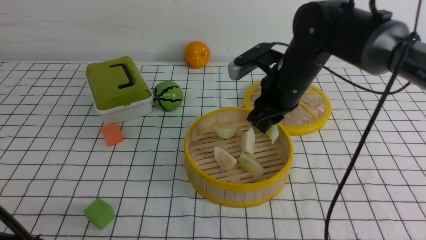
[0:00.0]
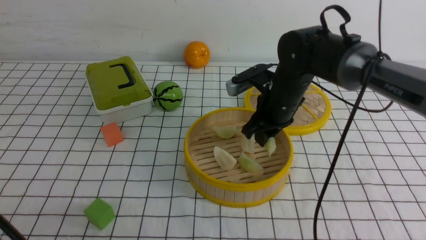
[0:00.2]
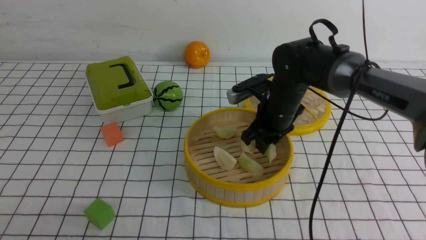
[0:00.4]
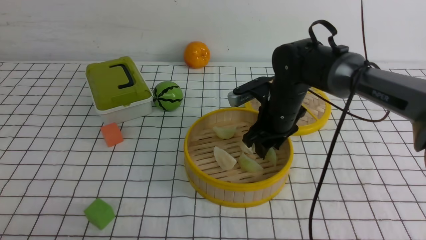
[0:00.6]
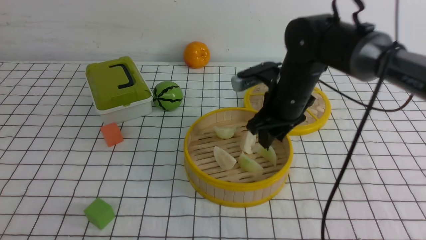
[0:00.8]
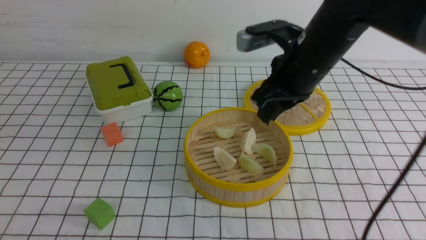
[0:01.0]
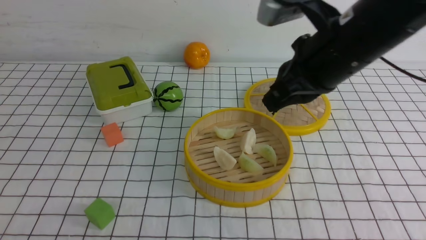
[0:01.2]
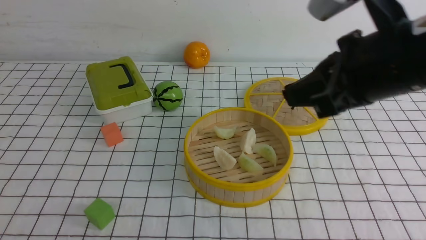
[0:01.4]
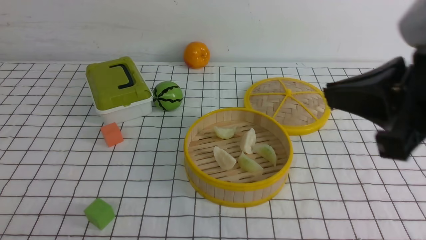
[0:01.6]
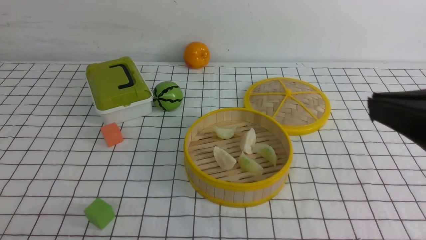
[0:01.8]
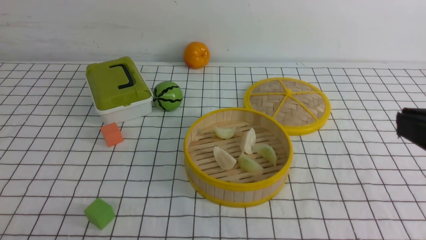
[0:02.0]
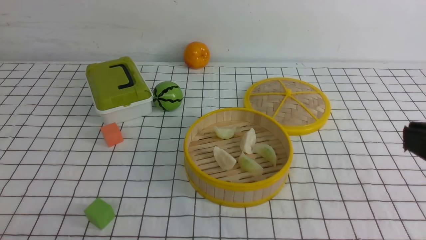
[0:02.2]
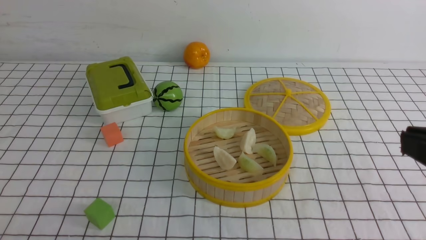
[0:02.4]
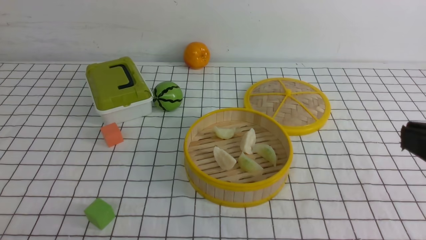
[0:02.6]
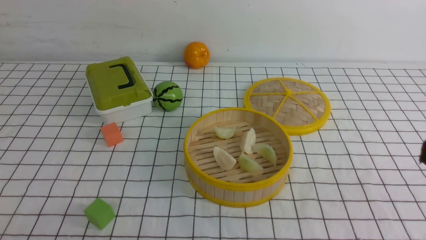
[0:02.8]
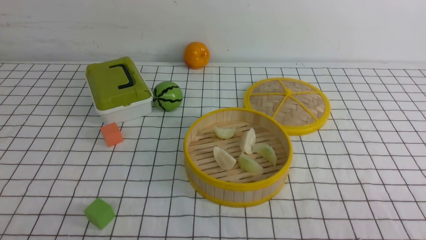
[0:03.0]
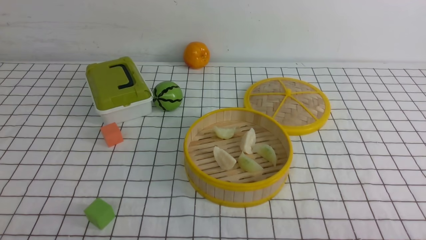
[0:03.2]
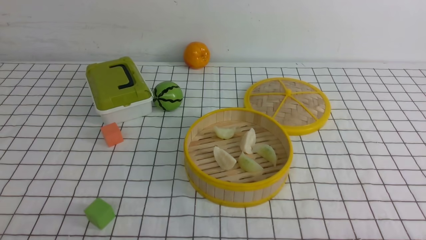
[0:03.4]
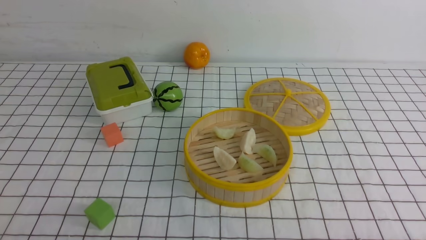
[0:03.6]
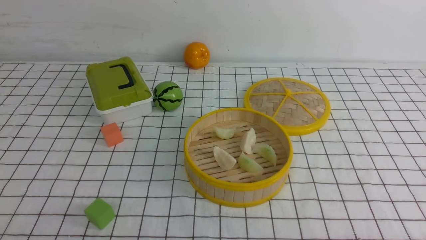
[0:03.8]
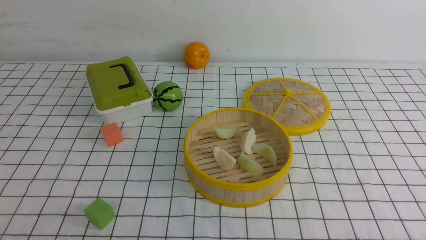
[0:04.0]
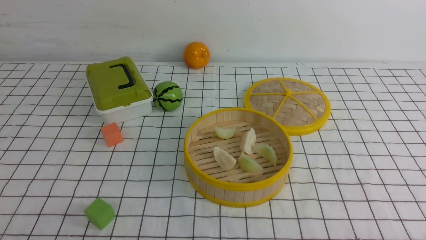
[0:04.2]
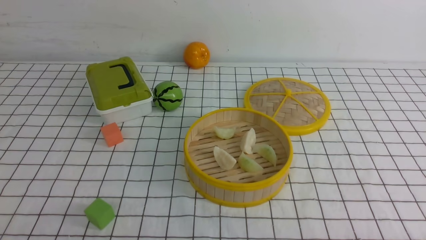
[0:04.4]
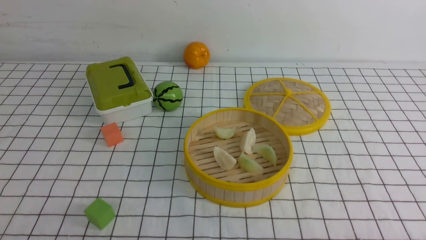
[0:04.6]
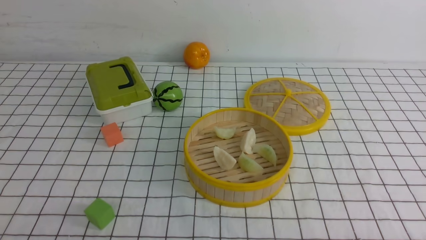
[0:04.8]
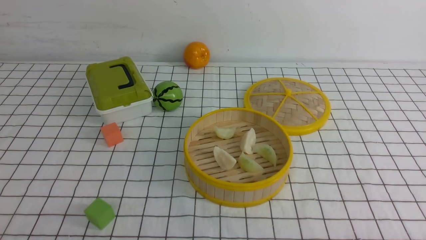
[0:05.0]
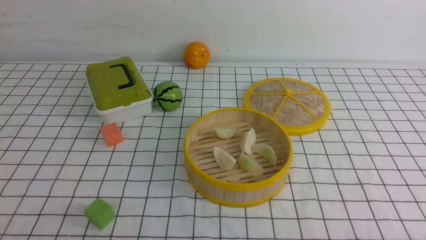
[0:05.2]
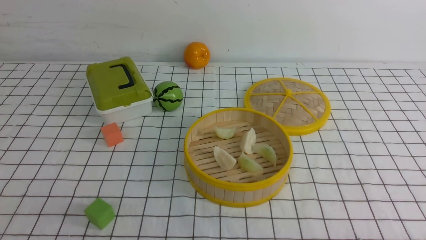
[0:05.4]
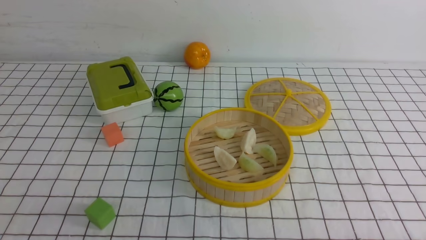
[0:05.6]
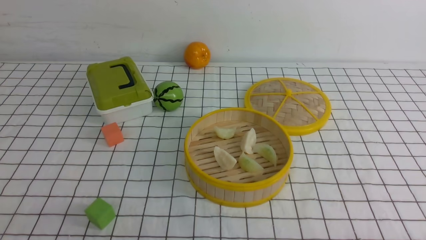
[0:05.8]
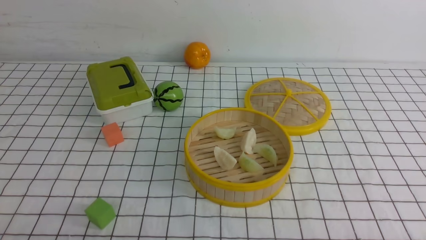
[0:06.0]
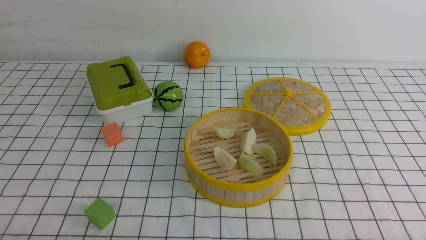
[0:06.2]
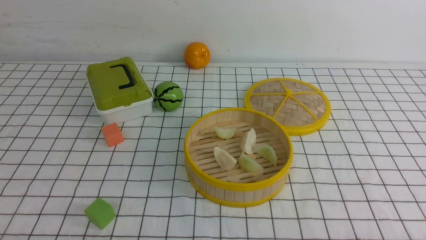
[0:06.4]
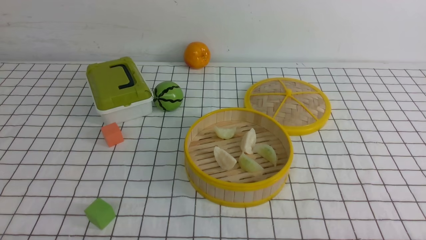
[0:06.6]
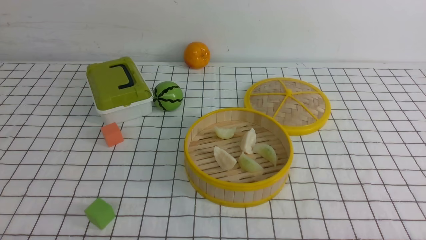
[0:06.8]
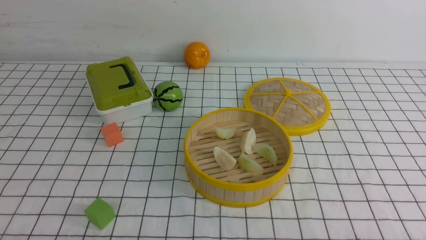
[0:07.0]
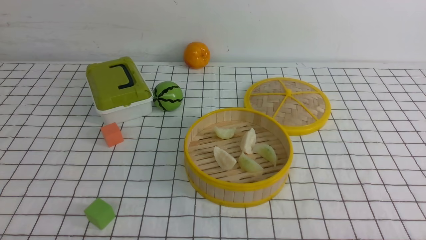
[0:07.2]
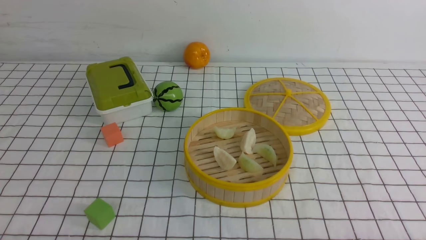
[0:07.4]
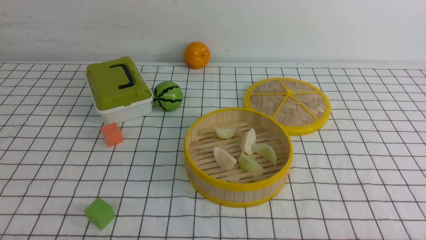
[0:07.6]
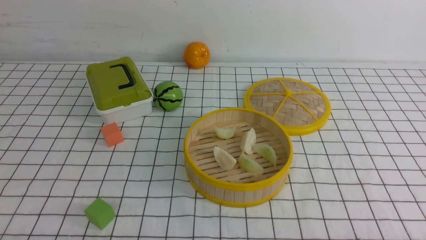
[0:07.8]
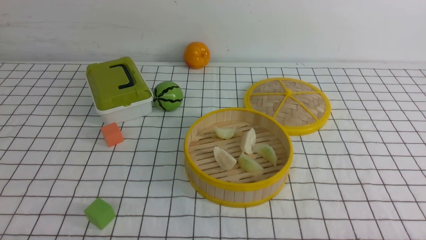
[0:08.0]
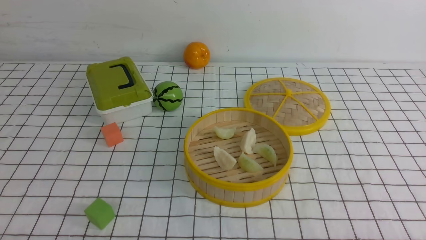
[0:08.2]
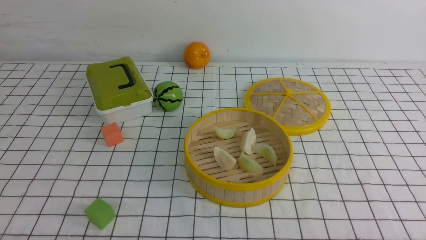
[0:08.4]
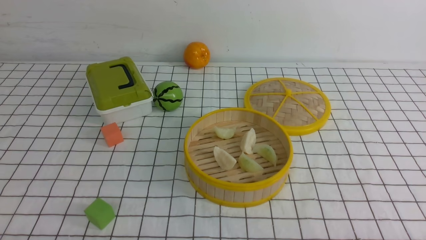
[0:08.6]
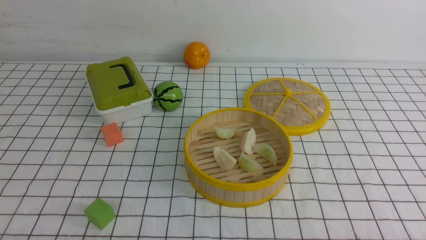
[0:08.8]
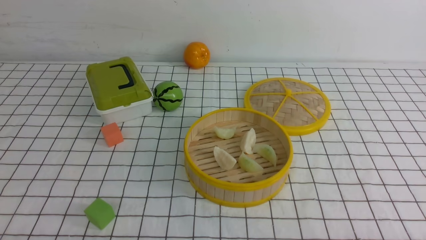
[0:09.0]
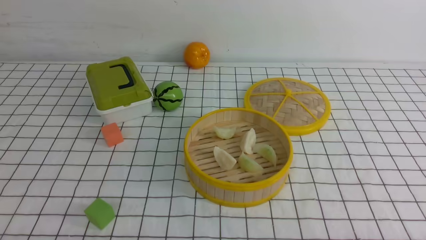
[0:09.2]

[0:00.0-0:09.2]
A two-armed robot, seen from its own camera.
Task of the whole recording: put the dumplings into the steamer on the table with the white tablecloth.
Step, 0:00.4 to 0:01.0: use the right arm to put the dumpling into the steamer.
0:00.0 to 0:01.6: The left gripper goes approximately 5 cm backward. Meanwhile the right gripper is displaced backward and upward by roughly 30 cm, and closes.
0:01.6 to 0:03.0: The right gripper shifts approximately 20 cm downward, backward and to the right.
0:07.6 to 0:09.2: The two grippers keep their place.

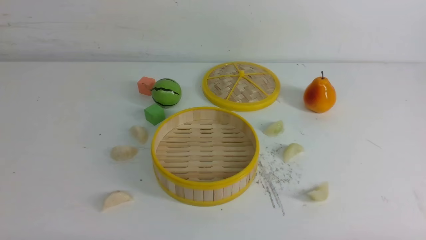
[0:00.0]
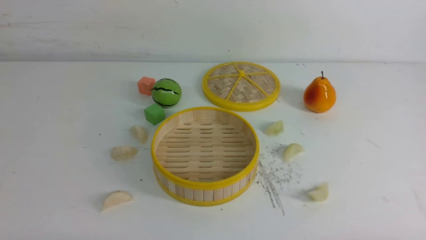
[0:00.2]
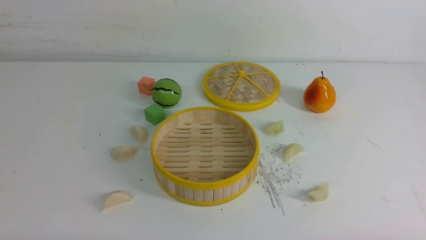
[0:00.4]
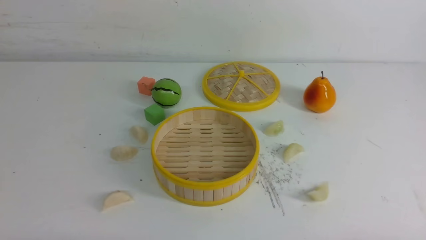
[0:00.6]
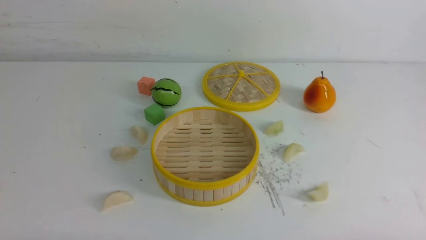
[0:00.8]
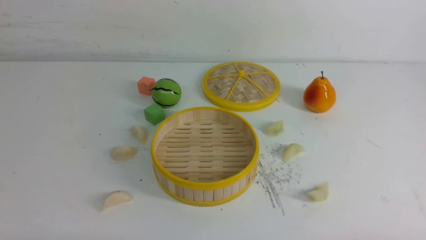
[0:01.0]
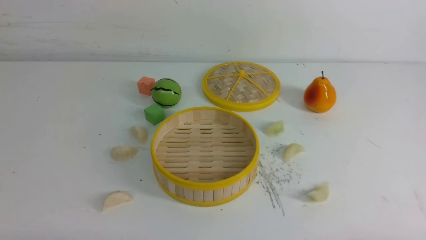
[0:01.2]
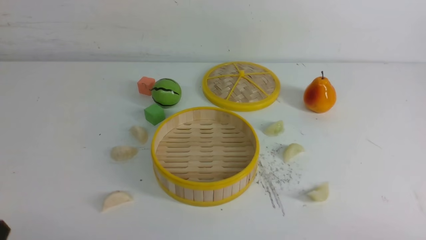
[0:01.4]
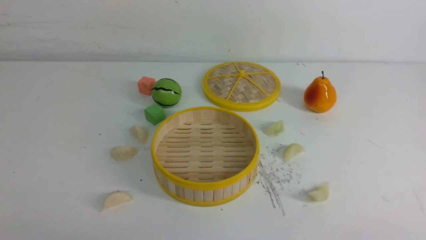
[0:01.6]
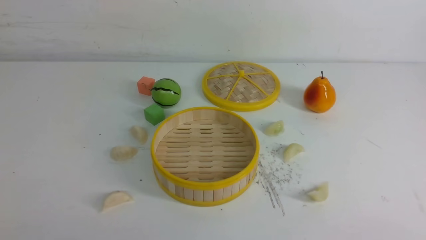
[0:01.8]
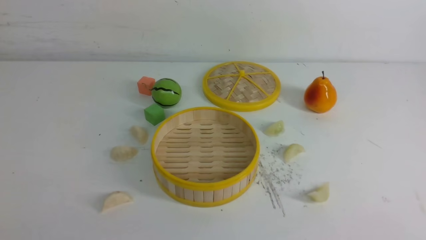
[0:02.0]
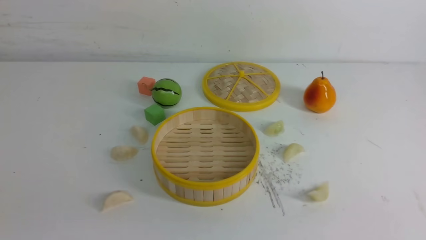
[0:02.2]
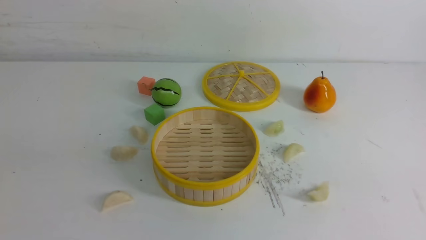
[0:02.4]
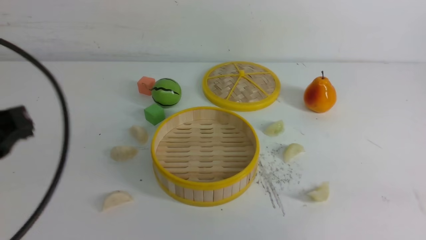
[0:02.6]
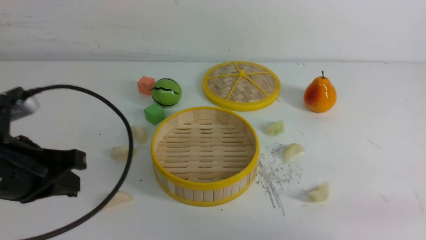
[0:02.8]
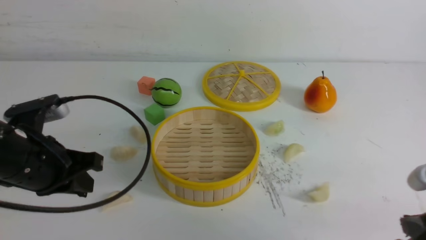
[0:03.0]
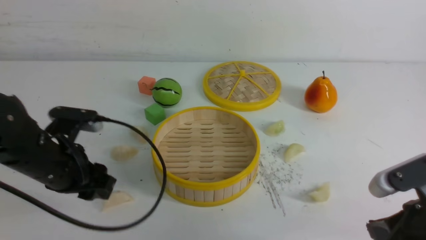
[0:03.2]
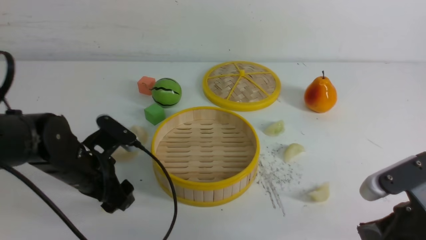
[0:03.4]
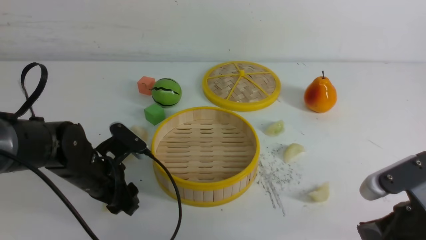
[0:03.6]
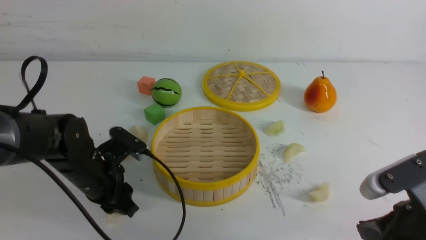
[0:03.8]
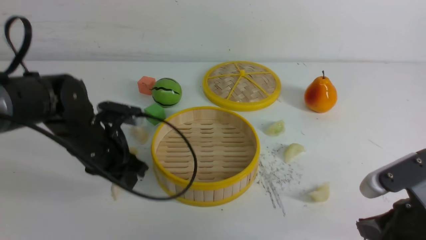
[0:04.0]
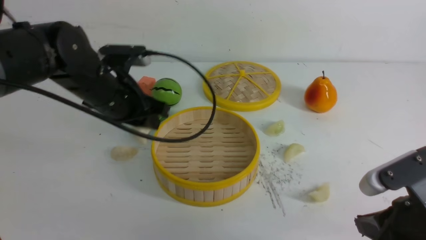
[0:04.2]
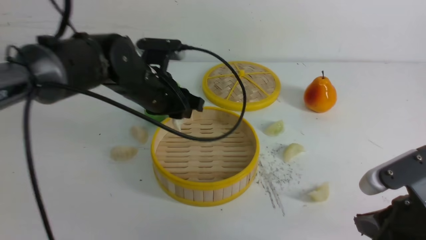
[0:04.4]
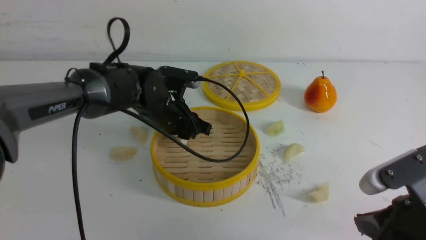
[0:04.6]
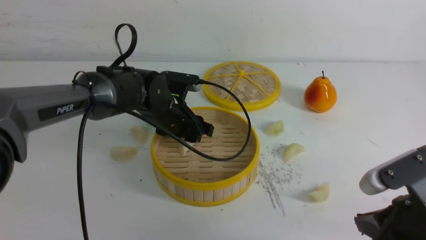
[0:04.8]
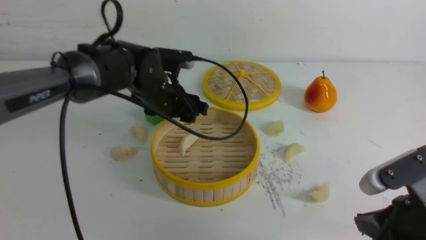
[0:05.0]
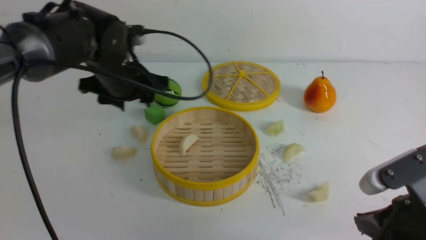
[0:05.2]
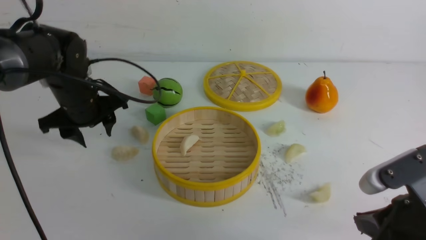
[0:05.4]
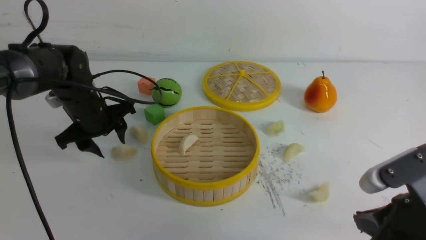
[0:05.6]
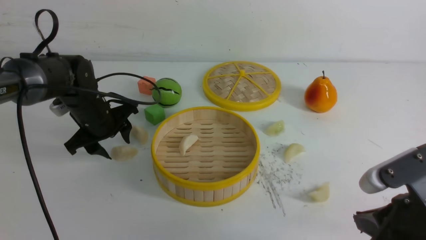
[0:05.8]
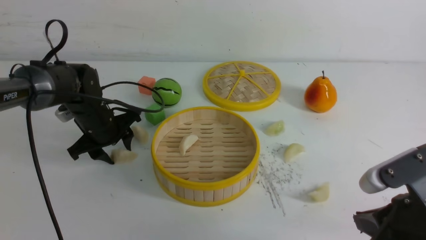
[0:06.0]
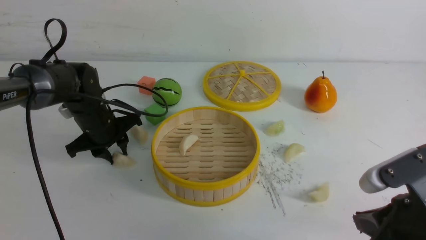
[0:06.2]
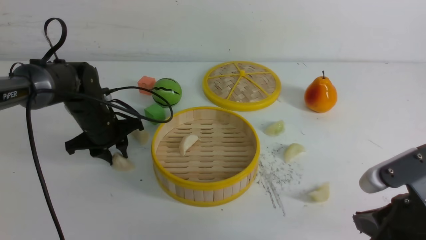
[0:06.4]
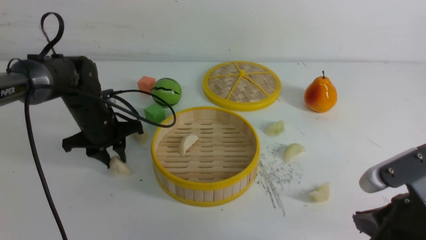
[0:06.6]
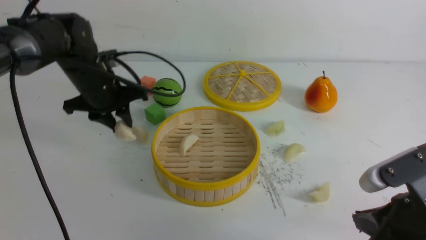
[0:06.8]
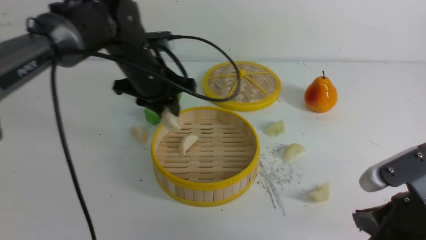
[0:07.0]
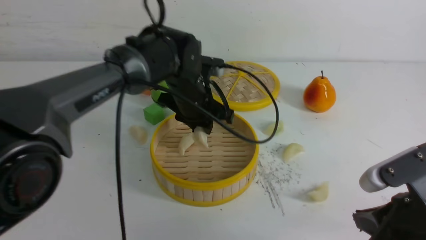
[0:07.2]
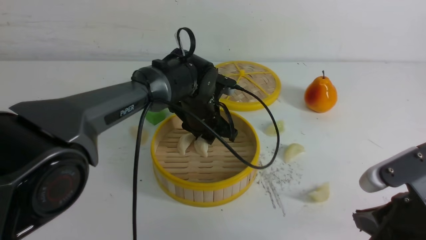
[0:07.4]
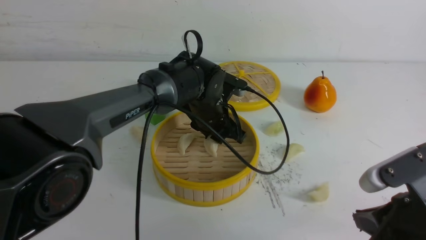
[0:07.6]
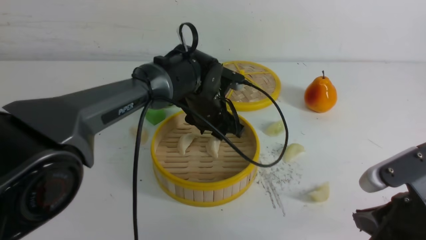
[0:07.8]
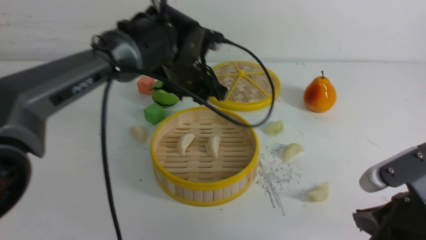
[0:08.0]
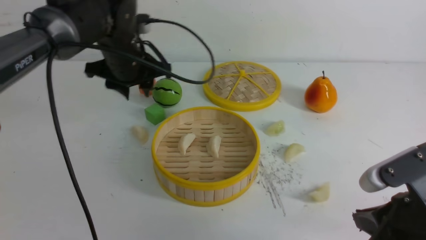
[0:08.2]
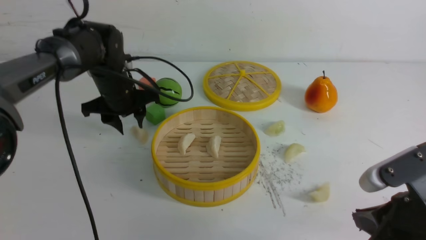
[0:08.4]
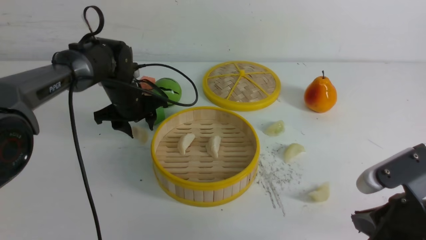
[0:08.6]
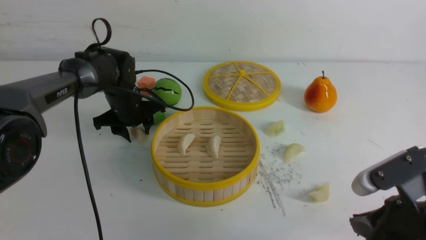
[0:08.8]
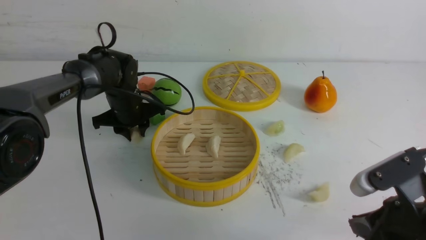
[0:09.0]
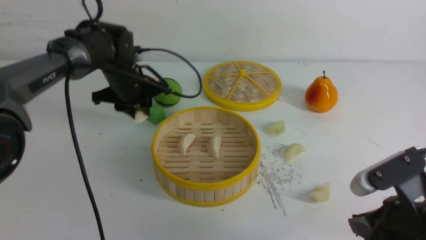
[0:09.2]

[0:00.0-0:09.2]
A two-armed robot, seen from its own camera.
Task of the whole recording: put the dumplings into the steamer on the white table.
Step, 0:00.0 to 0:03.4: use the left arm to grab a dumpling.
Step, 0:03.6 to 0:04.8: use the left arm to put the dumpling into the steamer.
Step, 0:05.0 to 0:06.2: use the left arm to grab a dumpling.
Step, 0:06.4 to 0:07.6: use the left arm to put the dumpling into the steamer.
Step, 0:07.8 to 0:08.8: use the left arm to grab a dumpling.
0:01.6 to 0:03.0: The left gripper shifts about 20 cm forward, and closes, then reopens, while the right gripper travels forward by approximately 10 cm, and closes up.
0:03.0 to 0:04.6: The left gripper shifts about 20 cm forward and to the right.
0:04.6 to 0:06.2: The left gripper heads to the left, covering roughly 10 cm.
0:06.2 to 0:07.6: The left gripper is displaced to the right by approximately 20 cm.
0:07.6 to 0:09.2: The left gripper is displaced to the left by about 10 cm.
